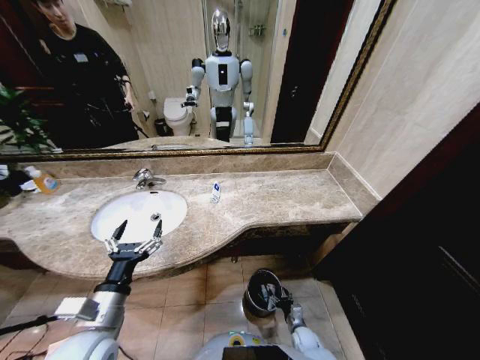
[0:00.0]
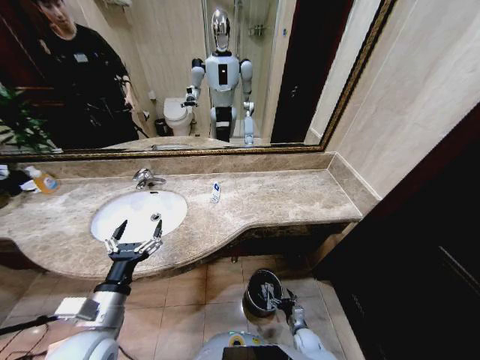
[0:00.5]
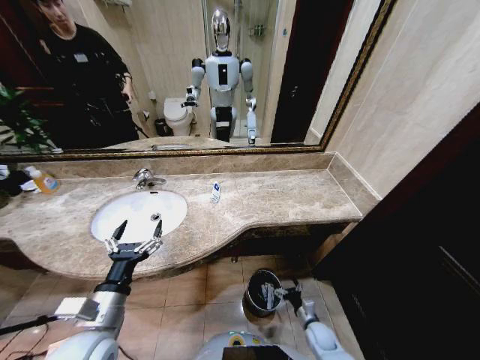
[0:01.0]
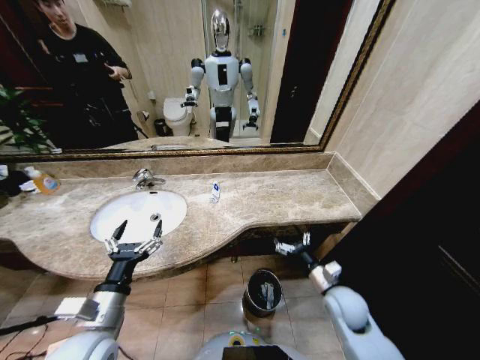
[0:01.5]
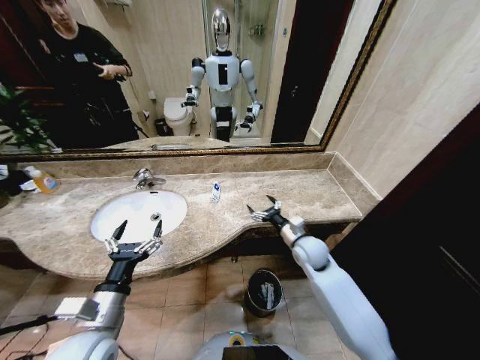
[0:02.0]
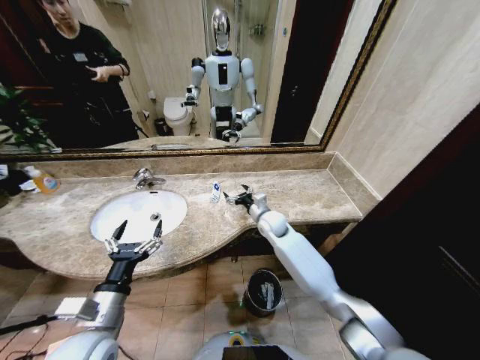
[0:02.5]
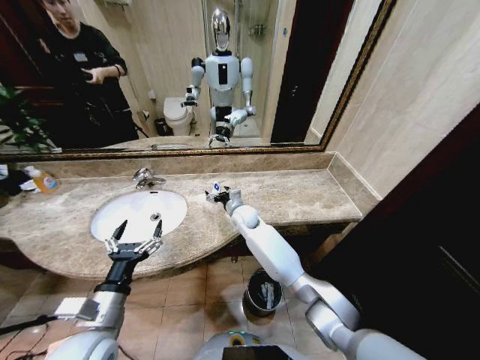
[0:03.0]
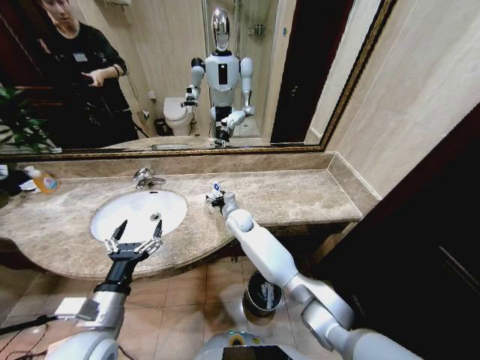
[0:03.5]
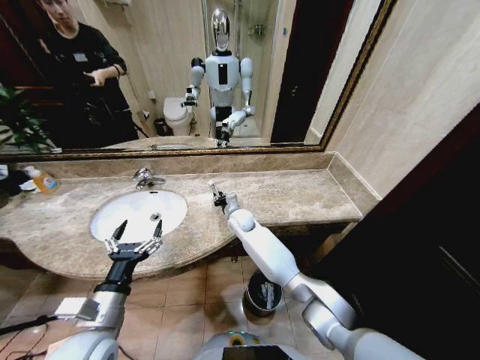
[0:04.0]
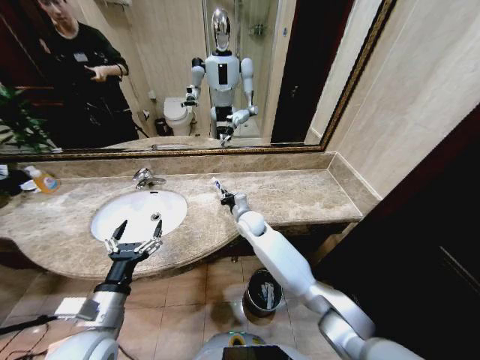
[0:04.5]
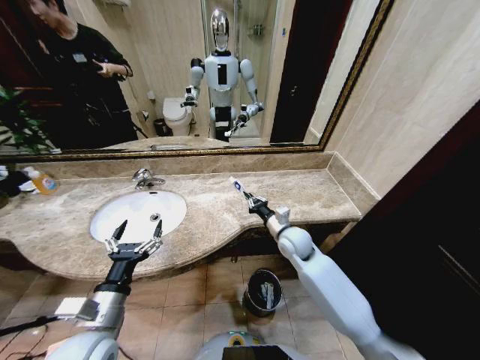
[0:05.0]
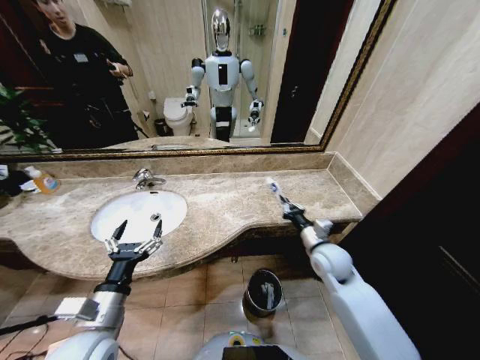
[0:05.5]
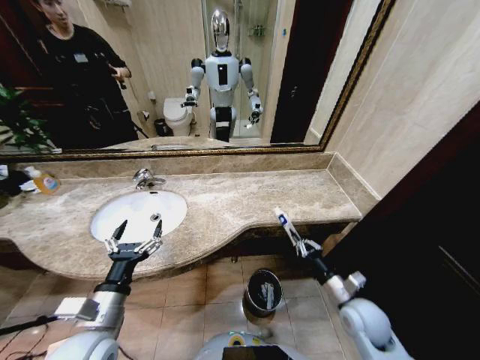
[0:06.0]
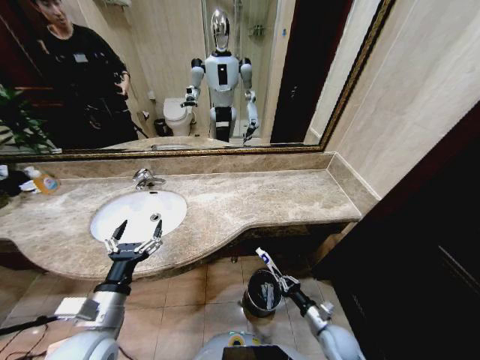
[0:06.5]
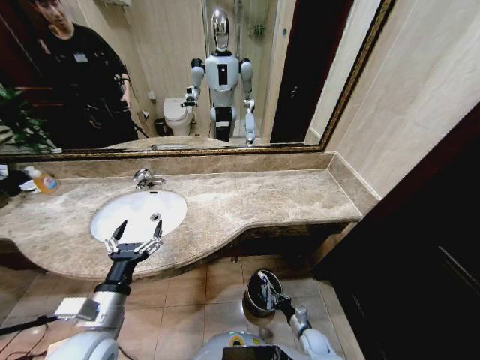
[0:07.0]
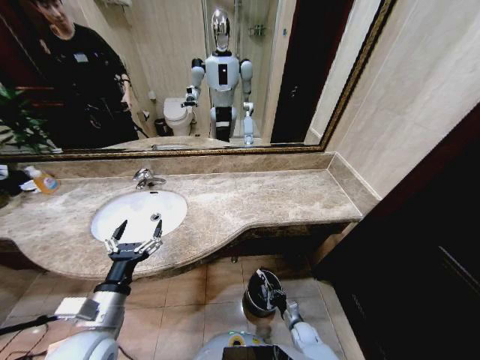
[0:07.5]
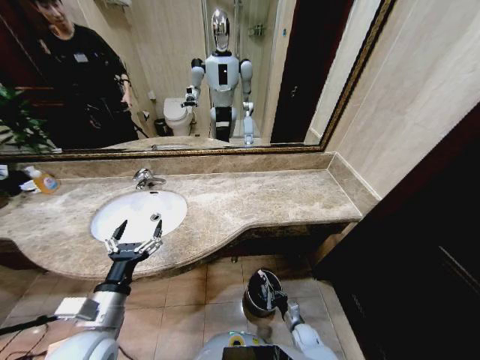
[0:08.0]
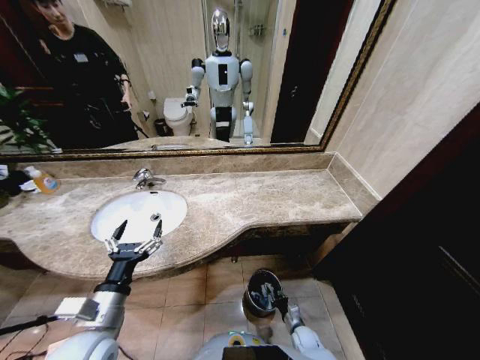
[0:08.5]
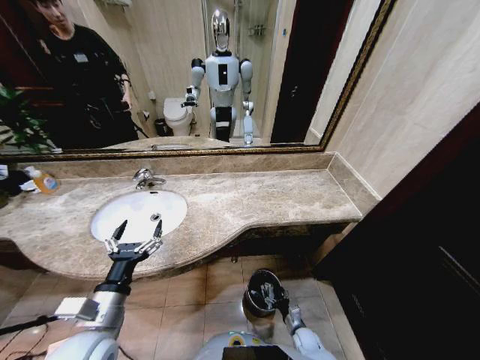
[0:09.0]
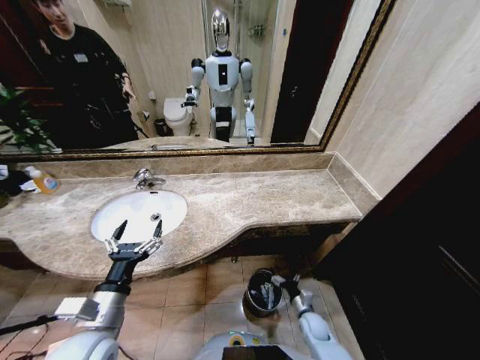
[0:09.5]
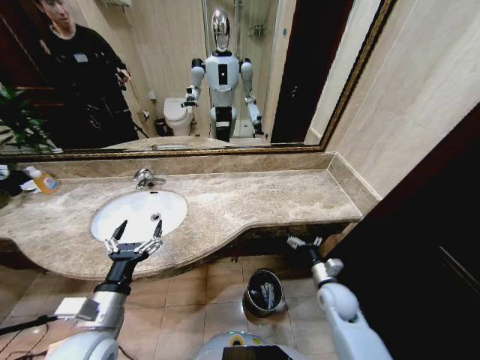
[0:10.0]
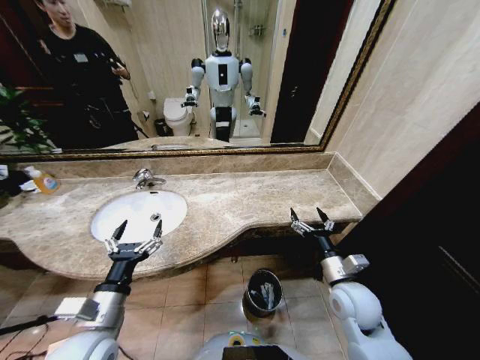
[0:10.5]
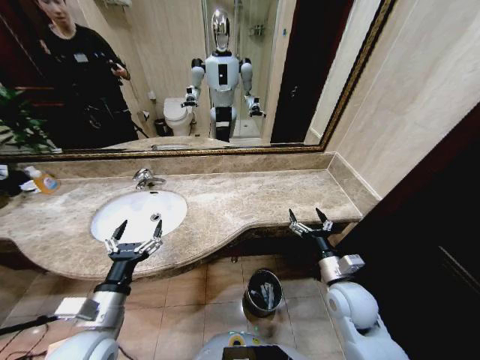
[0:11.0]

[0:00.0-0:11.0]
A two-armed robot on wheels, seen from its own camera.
Task of the whole recording: Pick up the trash from the sink and place it in the trash bin.
0:00.0 to 0:02.0: The right gripper is displaced upward and forward by about 40 cm.
0:02.0 to 0:03.5: The right gripper is displaced to the left and forward by about 25 cm.
0:03.5 to 0:05.5: The right gripper moves to the right and backward, roughly 30 cm, and closes.
0:05.5 to 0:07.5: The right gripper shifts about 40 cm downward.
0:07.5 to 0:09.0: The right gripper opens up.
0:09.0 to 0:11.0: The right gripper travels upward by some 35 cm.

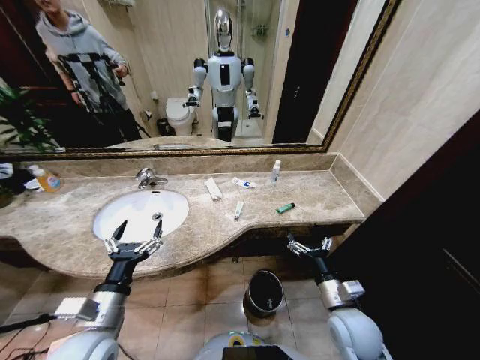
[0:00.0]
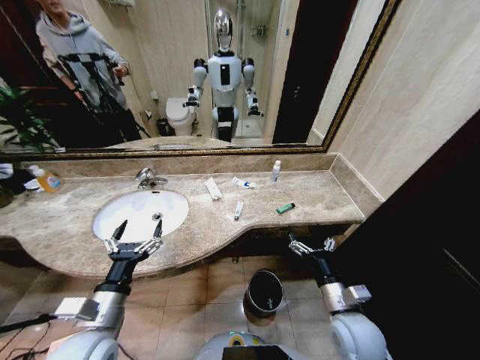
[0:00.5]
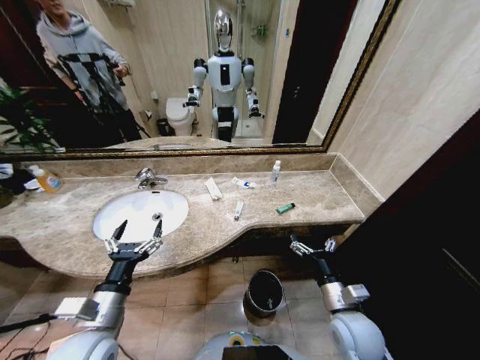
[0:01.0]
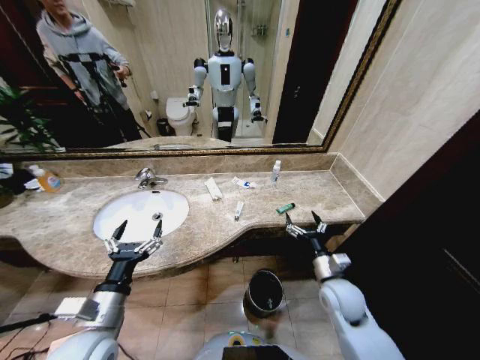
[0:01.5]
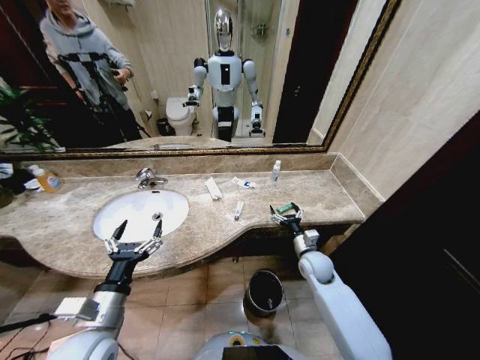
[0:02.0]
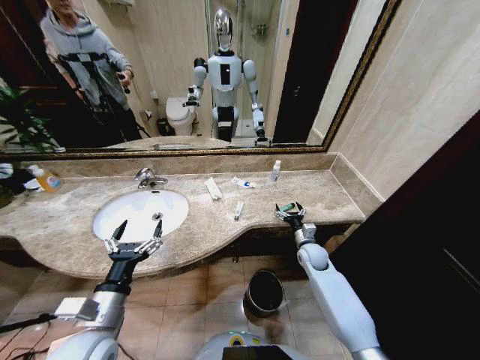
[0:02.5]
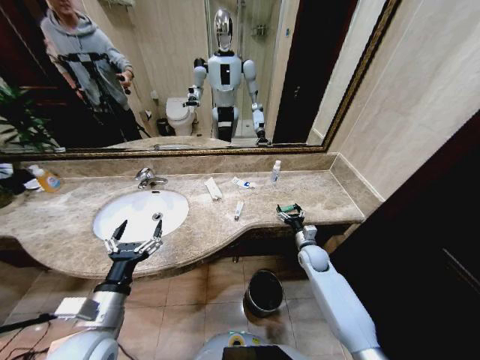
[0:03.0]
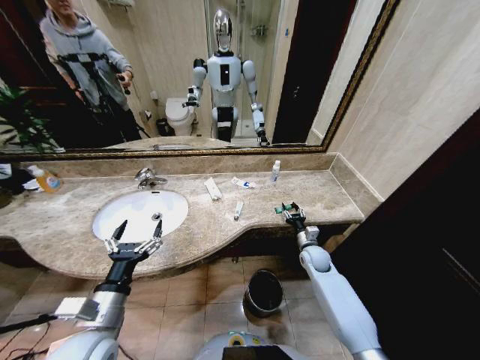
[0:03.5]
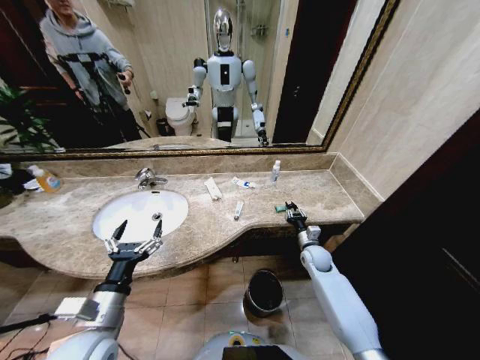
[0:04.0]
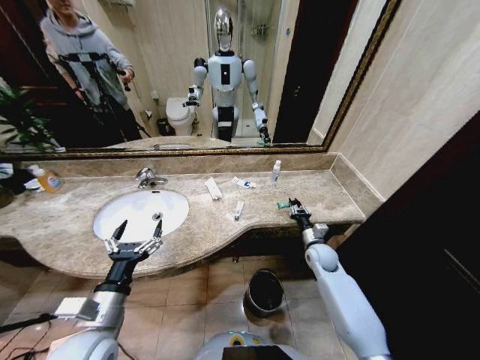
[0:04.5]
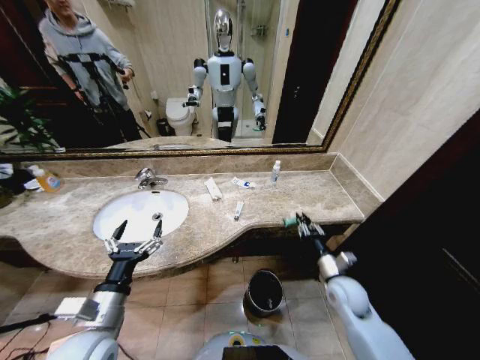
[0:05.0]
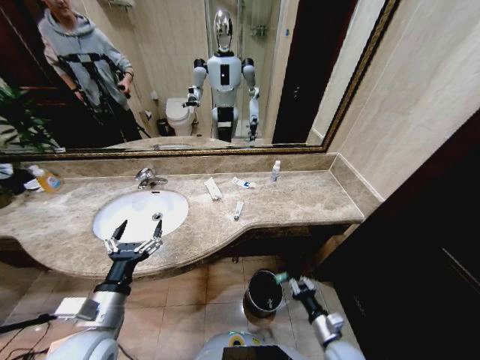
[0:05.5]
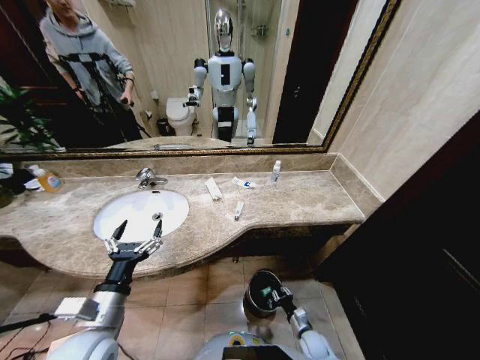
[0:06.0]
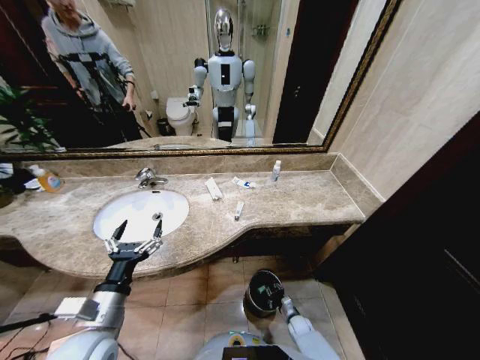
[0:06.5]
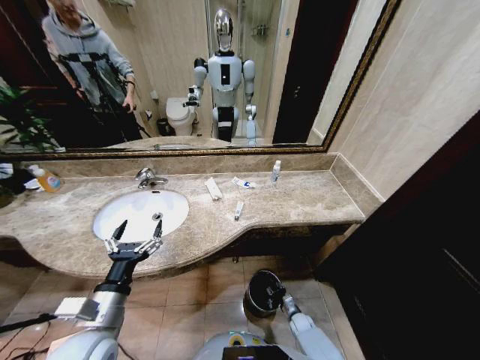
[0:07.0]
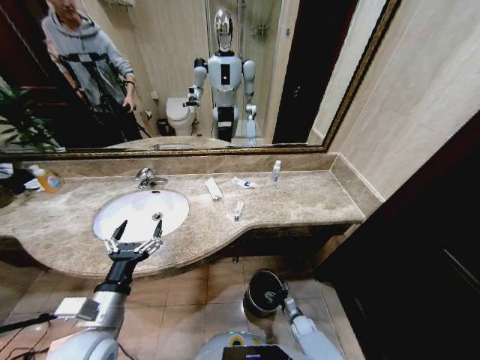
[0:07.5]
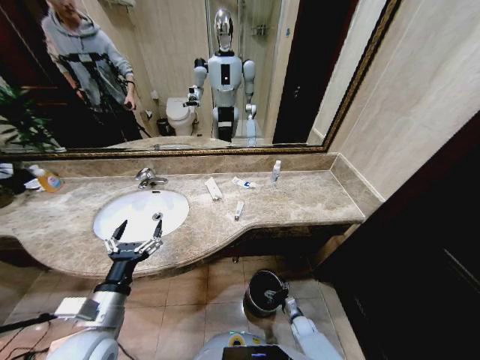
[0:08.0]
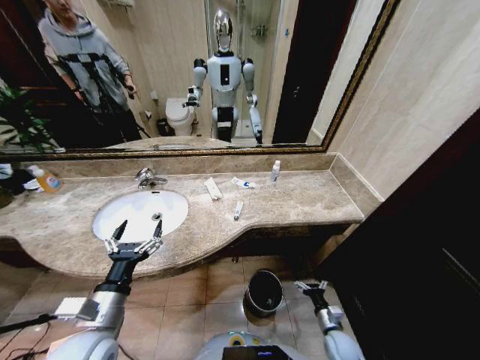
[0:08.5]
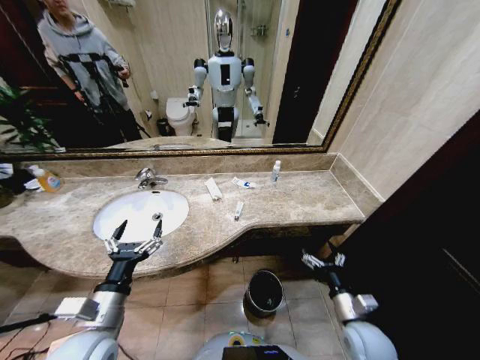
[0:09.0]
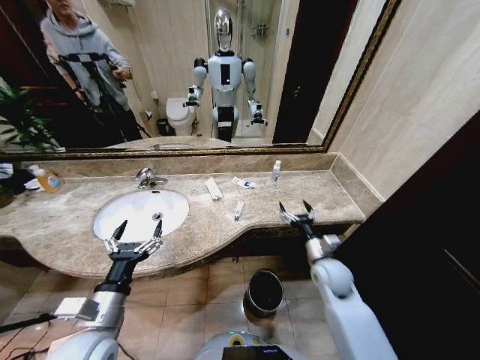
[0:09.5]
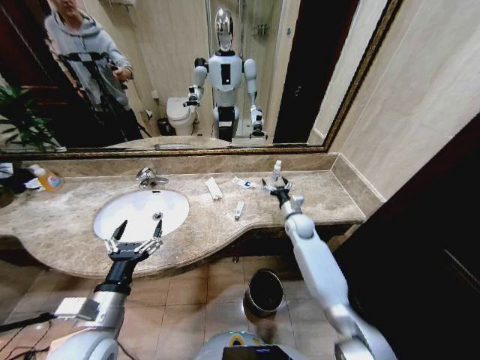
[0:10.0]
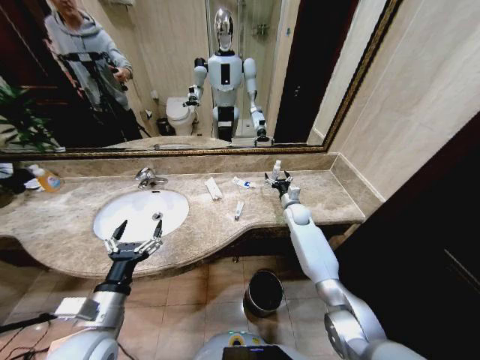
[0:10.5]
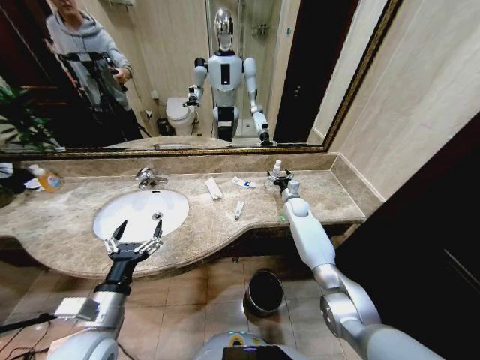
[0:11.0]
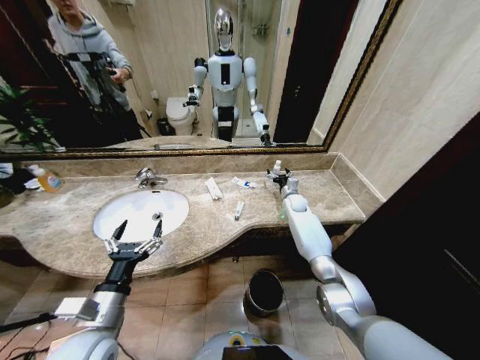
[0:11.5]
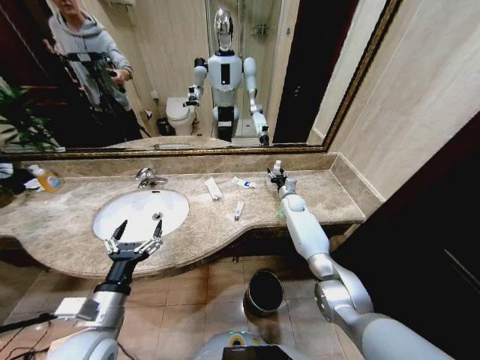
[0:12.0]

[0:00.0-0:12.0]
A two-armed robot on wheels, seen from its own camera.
Task of the whole recording: Pick up the trash from the sink and place it in the trash bin.
0:02.0 to 0:04.0: The right gripper shifts by roughly 5 cm, and closes.
0:04.0 to 0:06.0: The right gripper moves backward and downward, about 30 cm.
0:06.0 to 0:08.0: The right gripper is displaced downward and forward by some 10 cm, and opens its fingers.
0:08.0 to 0:10.0: The right gripper shifts roughly 40 cm upward and forward.
0:10.0 to 0:12.0: The right gripper moves forward, roughly 15 cm.

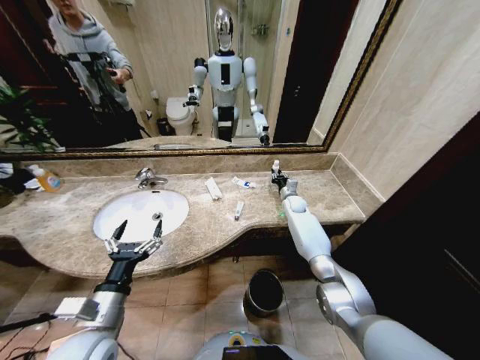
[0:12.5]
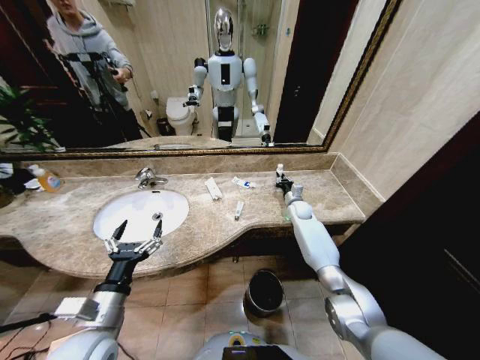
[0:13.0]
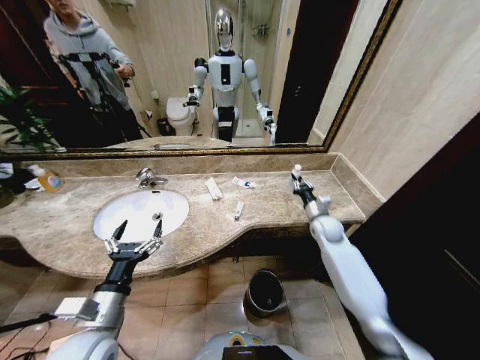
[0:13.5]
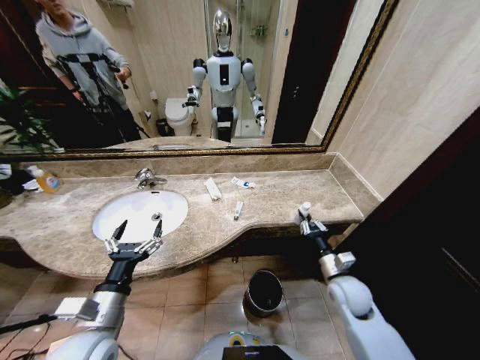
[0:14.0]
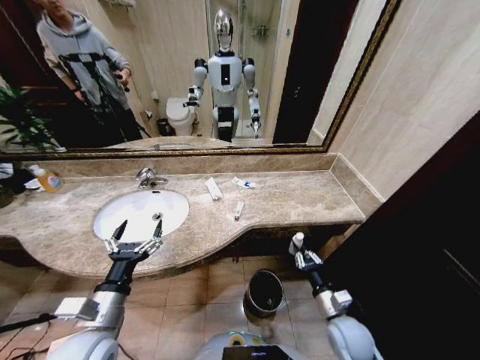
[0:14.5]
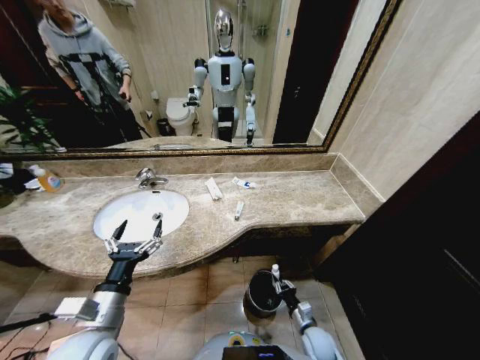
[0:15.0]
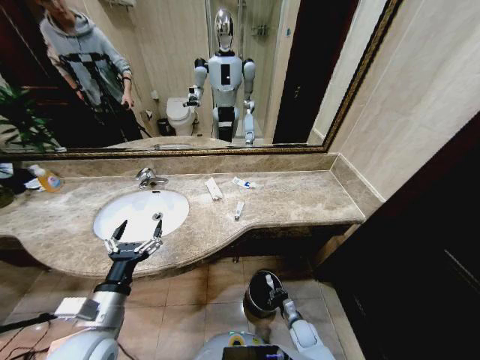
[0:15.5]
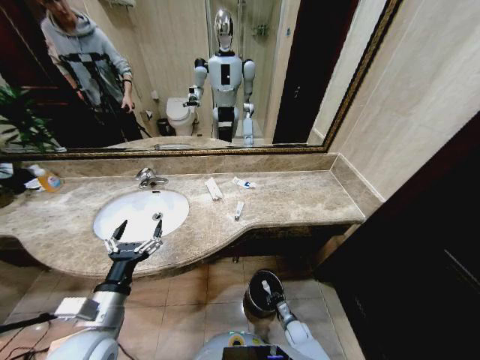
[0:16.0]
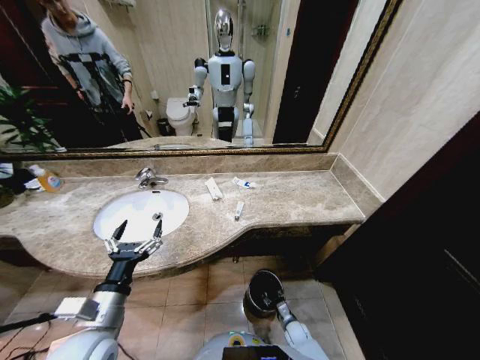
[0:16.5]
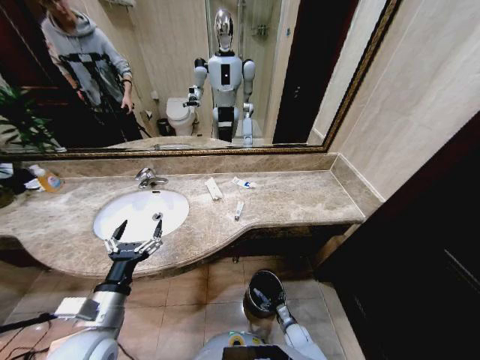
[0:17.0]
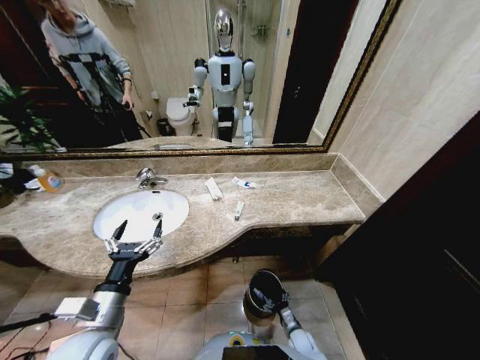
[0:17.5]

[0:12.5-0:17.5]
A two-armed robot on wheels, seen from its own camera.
Task of the whole recording: Pick up the trash from the sink and place it in the trash bin.
0:12.5 to 0:15.0: The right gripper travels backward and downward by about 50 cm.
0:15.0 to 0:17.5: The right gripper heads downward, covering about 10 cm, and opens up.
